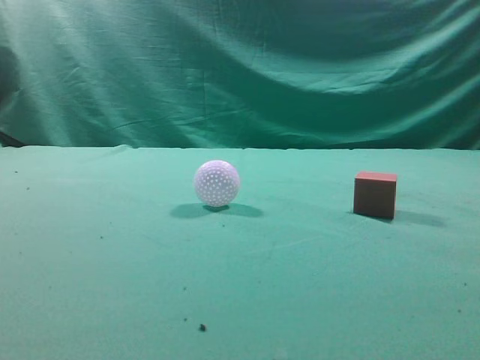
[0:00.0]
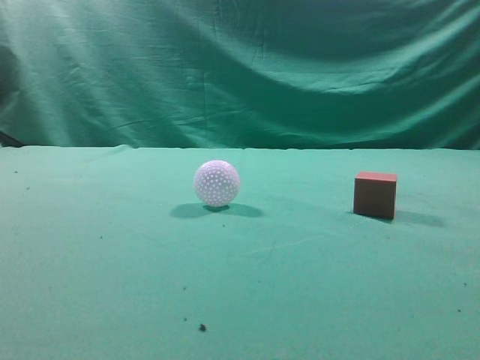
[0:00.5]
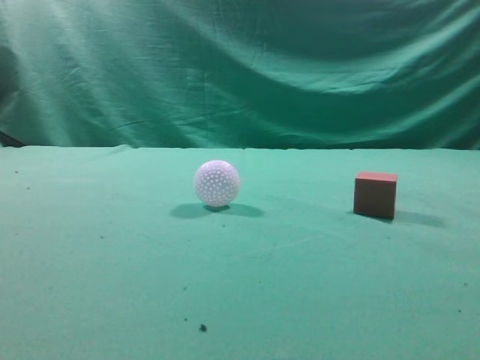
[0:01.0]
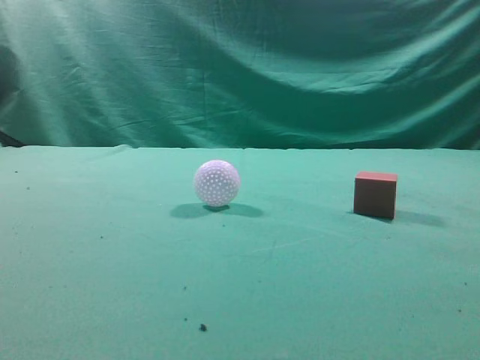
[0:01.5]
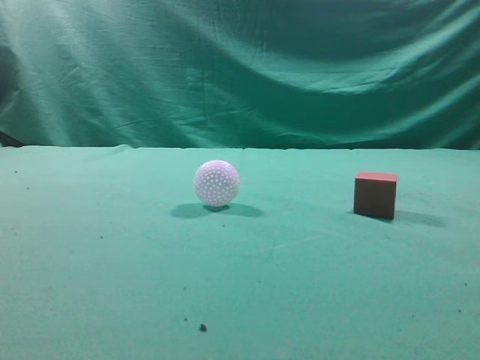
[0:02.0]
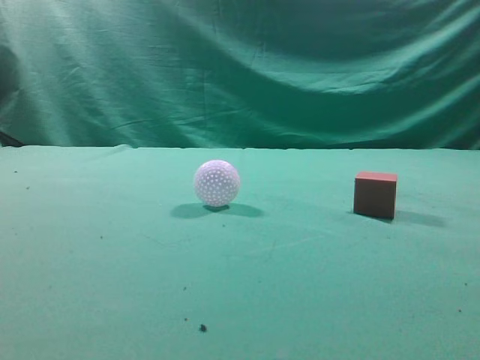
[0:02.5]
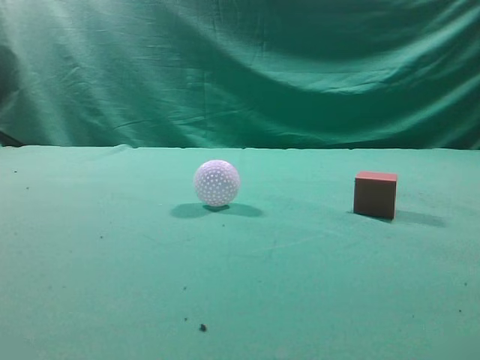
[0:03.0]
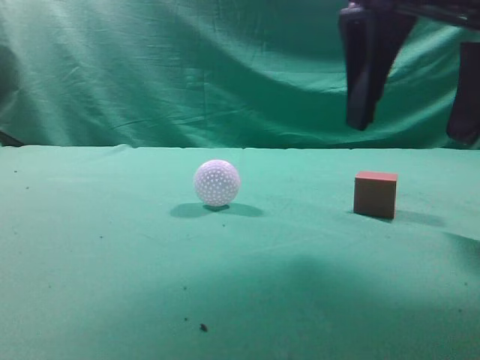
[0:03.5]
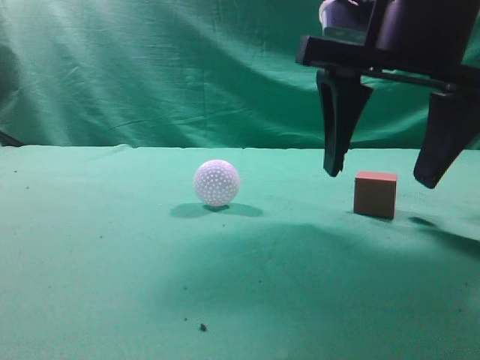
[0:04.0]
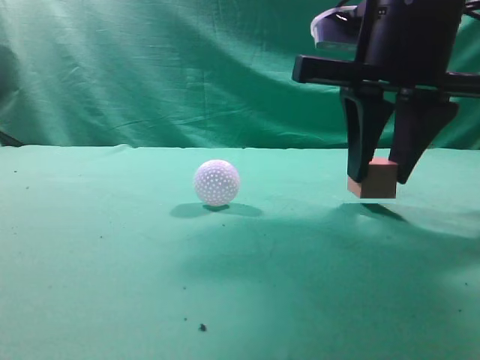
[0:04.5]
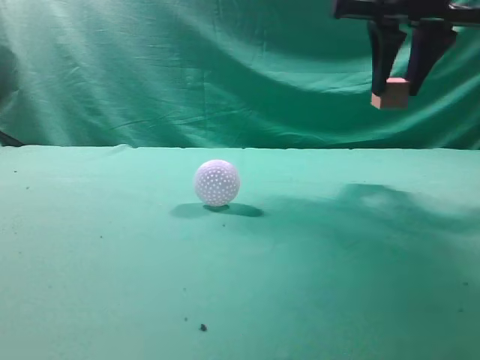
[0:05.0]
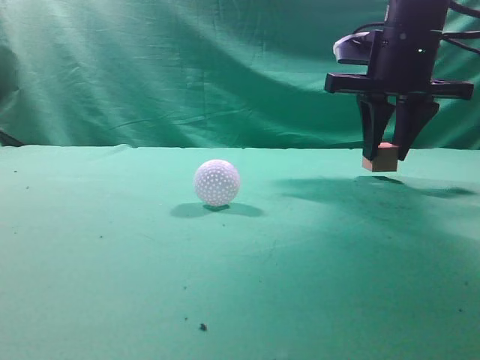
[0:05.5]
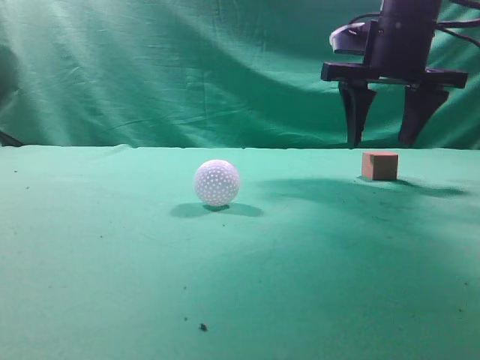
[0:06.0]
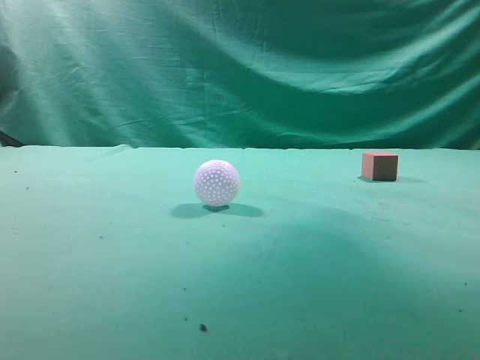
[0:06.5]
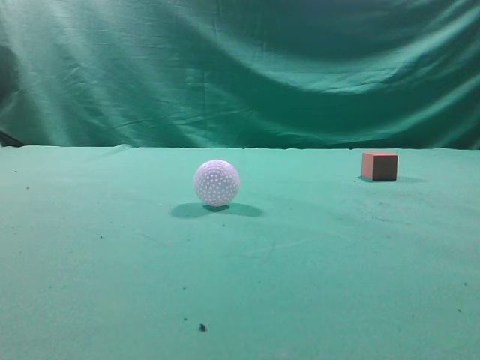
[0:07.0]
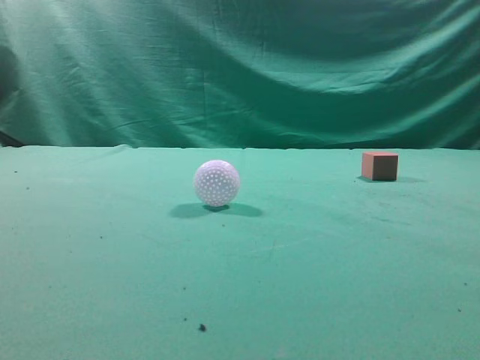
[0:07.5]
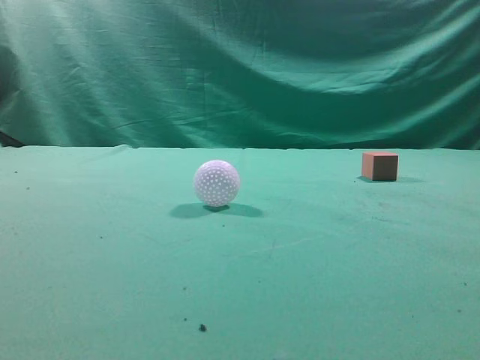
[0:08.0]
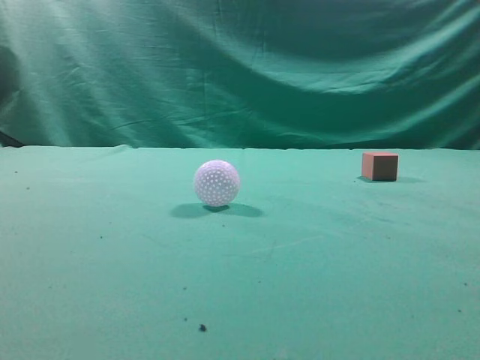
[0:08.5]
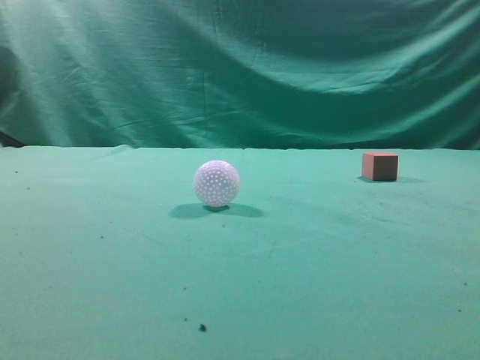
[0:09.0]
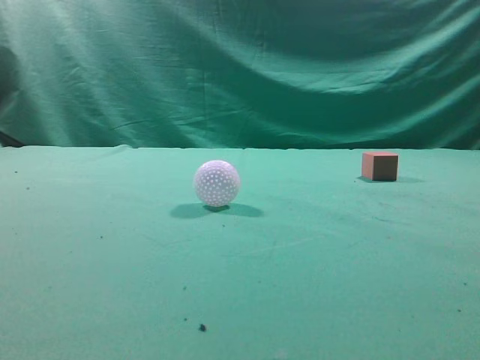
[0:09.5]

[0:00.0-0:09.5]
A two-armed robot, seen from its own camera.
Task of the whole recording: pick up the cube block and place it in another position on the table.
Step, 0:00.0 to 0:04.5: Pick up the small cube.
Step, 0:05.0 to 0:05.5: Place the small cube on the ahead of the table.
0:02.0 to 0:04.0: The right gripper travels forward, to the left and downward by roughly 25 cm, and opens its fingers.
0:04.0 to 0:05.5: The right gripper moves forward, about 15 cm, and closes its fingers.
0:05.5 to 0:07.5: The right gripper shifts about 35 cm backward and upward, and closes its fingers.
